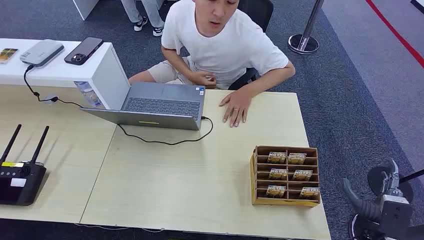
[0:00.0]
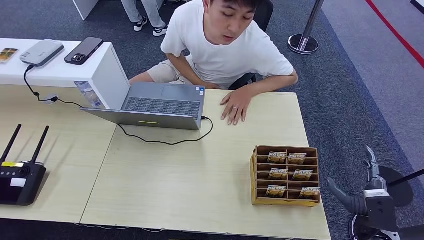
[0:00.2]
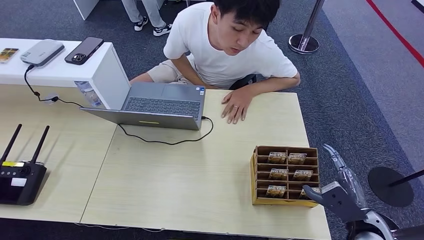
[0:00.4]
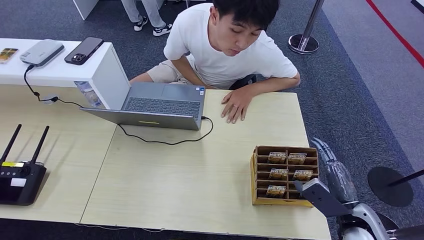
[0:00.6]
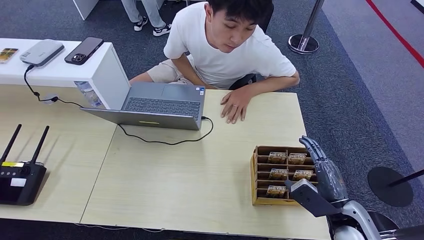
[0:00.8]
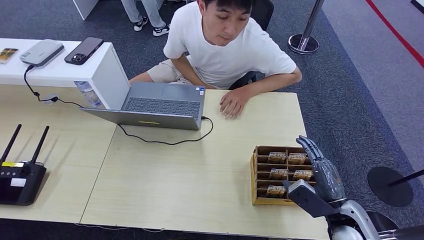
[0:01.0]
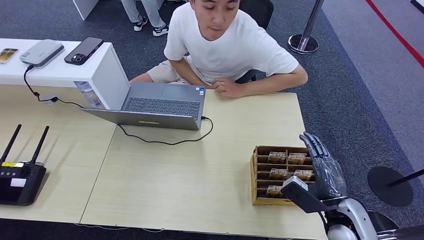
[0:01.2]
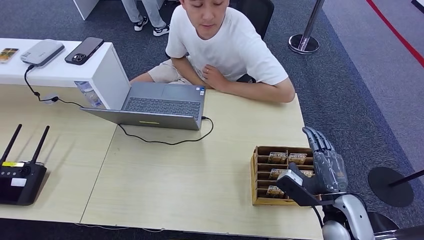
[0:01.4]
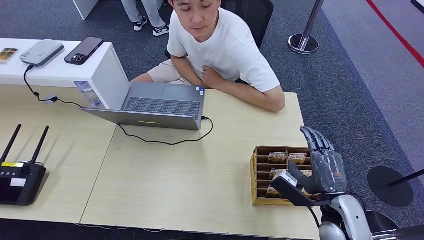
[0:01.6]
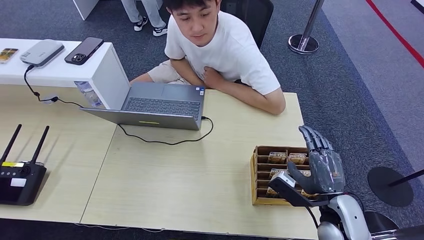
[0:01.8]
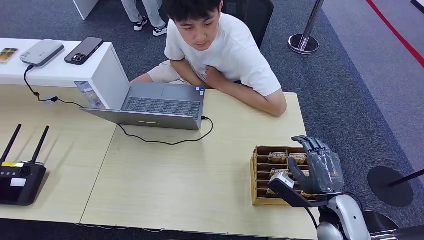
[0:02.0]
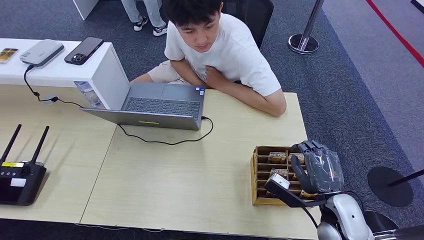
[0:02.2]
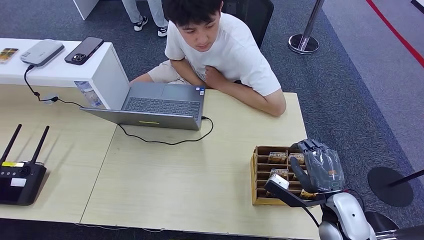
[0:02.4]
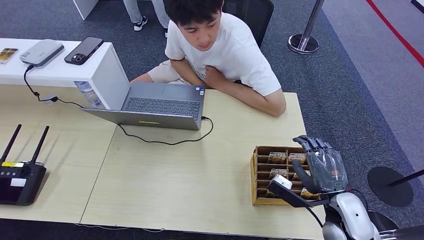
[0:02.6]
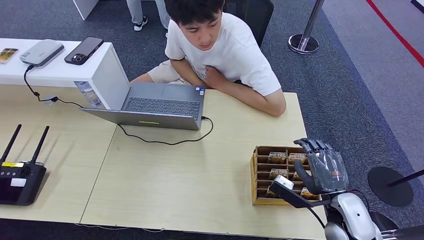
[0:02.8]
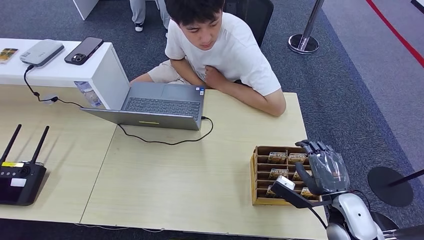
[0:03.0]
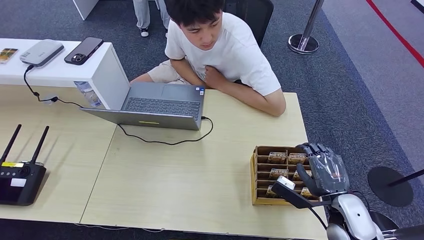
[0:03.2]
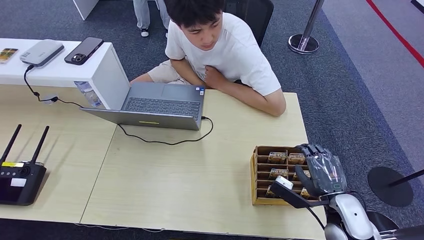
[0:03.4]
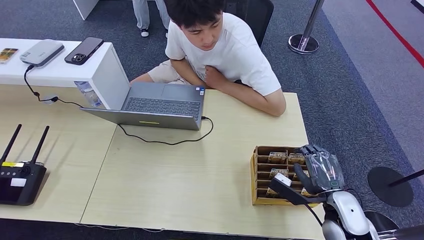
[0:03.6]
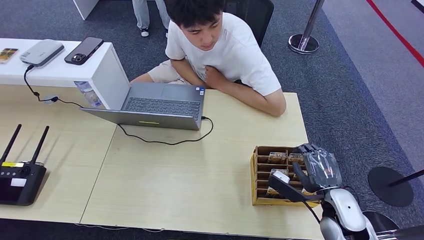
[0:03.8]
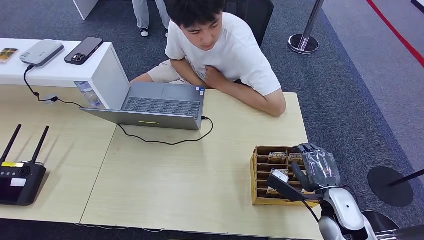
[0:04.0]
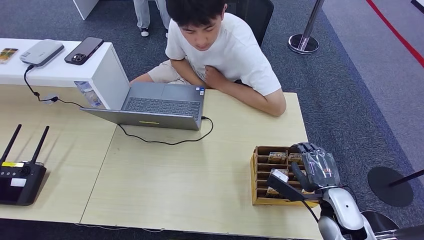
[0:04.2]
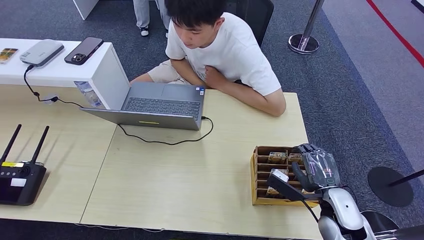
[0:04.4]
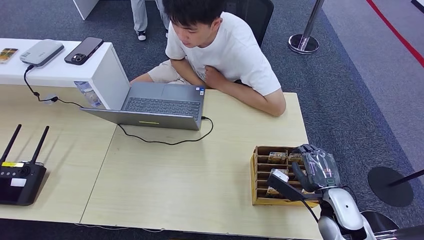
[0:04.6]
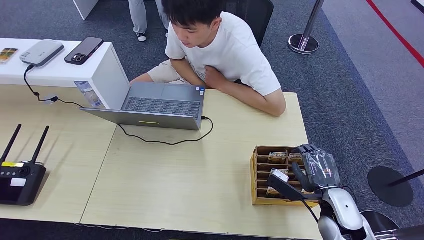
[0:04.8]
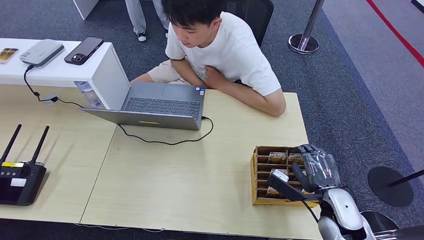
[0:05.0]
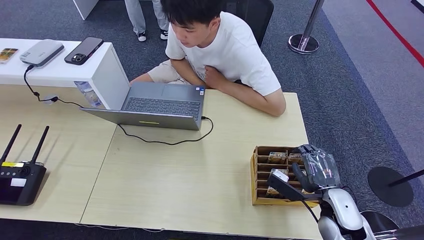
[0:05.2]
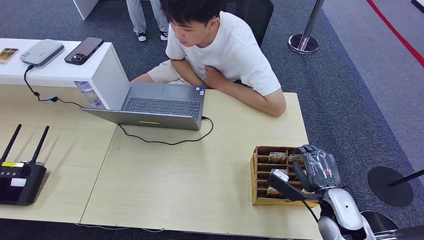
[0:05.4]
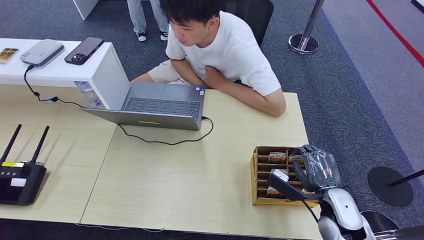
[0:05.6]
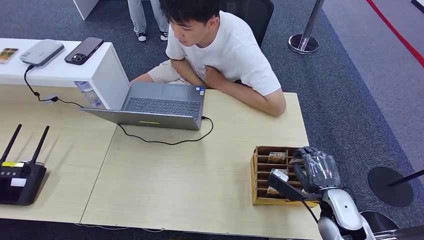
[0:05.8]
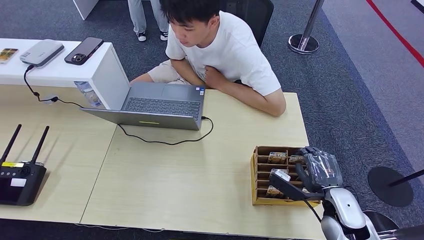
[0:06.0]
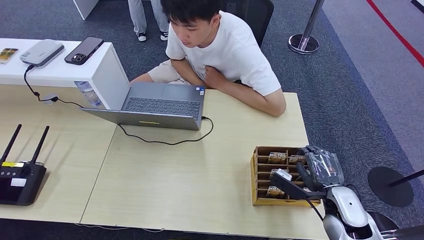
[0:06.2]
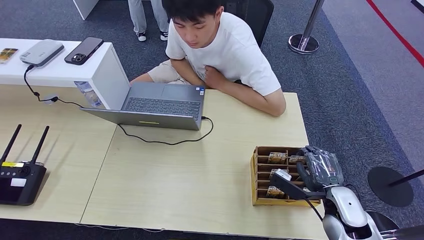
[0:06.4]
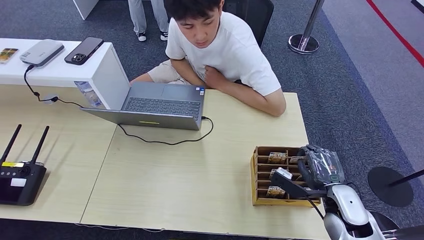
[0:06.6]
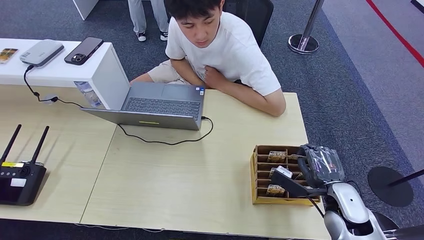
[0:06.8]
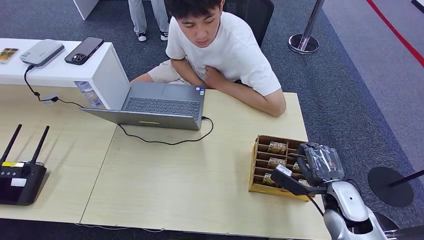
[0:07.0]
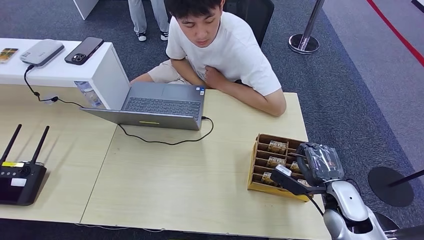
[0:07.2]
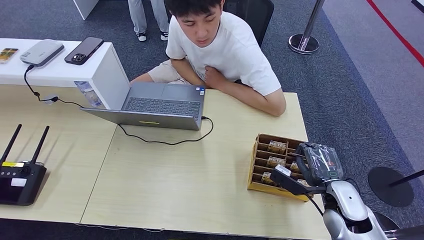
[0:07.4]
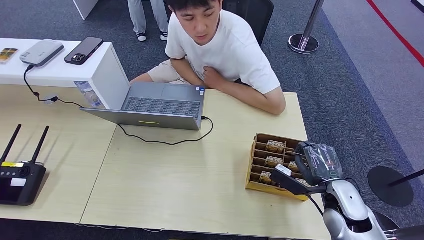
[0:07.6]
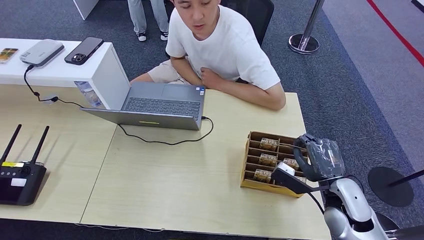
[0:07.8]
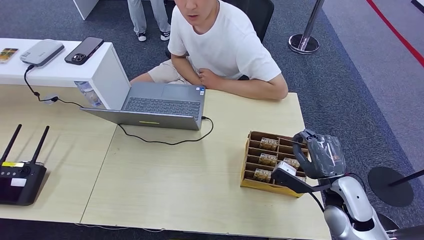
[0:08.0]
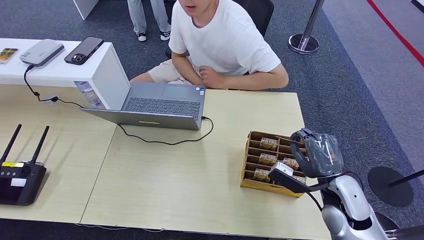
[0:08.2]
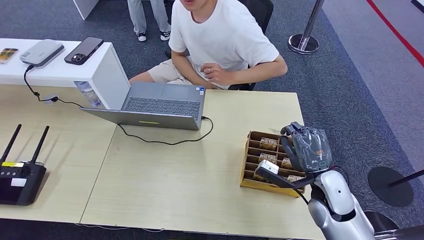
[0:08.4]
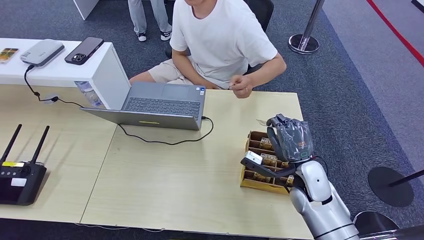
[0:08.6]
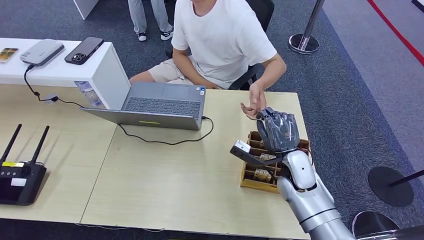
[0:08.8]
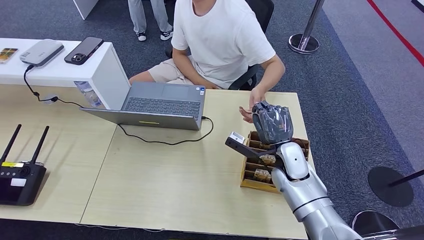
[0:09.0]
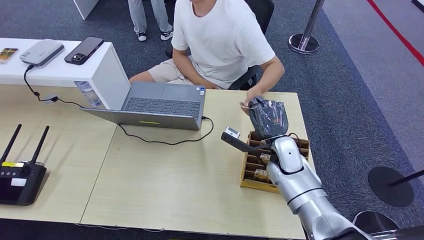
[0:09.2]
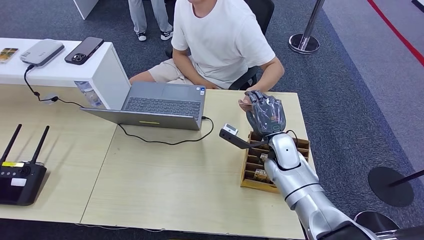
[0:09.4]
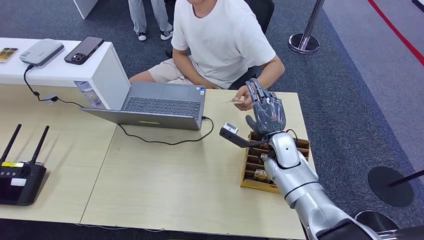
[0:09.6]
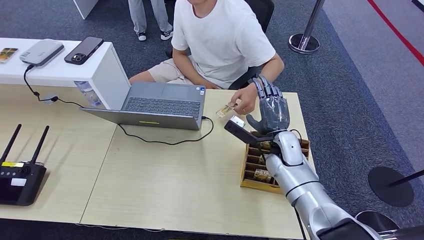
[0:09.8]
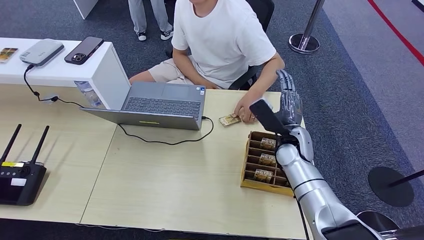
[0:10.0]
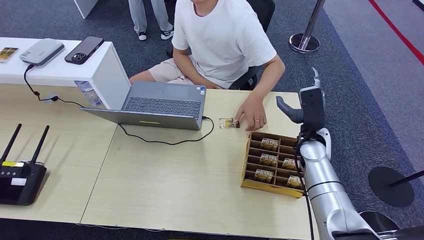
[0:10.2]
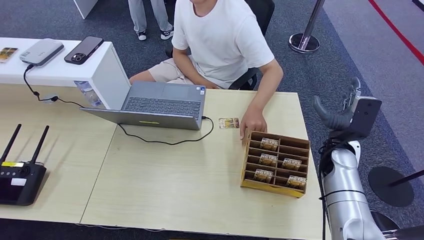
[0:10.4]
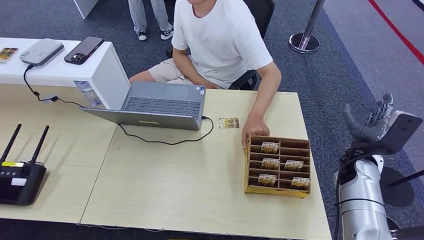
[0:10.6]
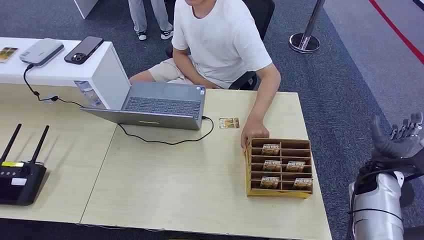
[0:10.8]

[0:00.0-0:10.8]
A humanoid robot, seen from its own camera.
Step, 0:00.0 to 0:08.0: Pick up the key card from the card box.
Step, 0:08.4 to 0:10.8: Hand the key card to the target.
0:01.6 to 0:04.6: The hands move only a little.
0:04.6 to 0:06.2: Neither hand changes place.
0:06.2 to 0:07.8: There are only small adjustments of the hands.
0:07.8 to 0:09.2: The right hand heads to the left and forward, covering approximately 20 cm.
0:09.2 to 0:10.8: The right hand shifts about 25 cm to the right.
